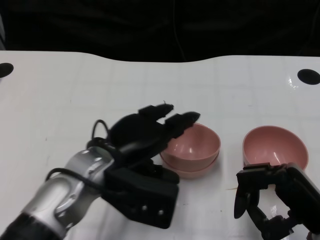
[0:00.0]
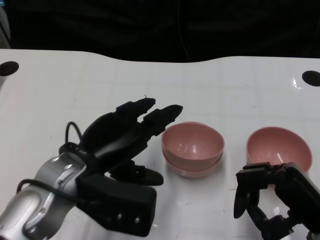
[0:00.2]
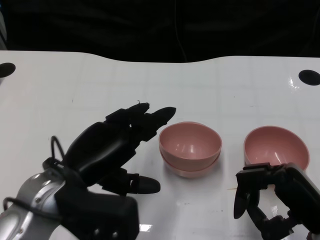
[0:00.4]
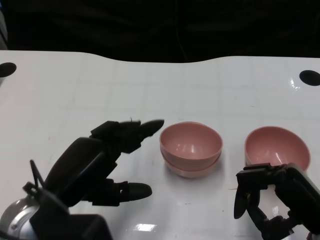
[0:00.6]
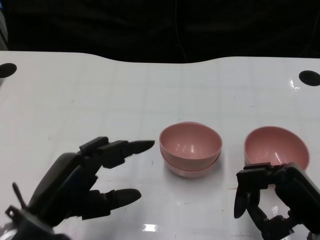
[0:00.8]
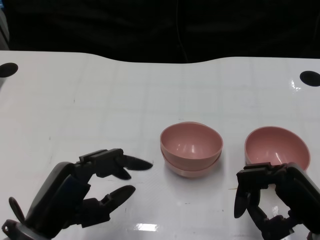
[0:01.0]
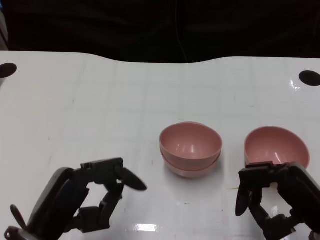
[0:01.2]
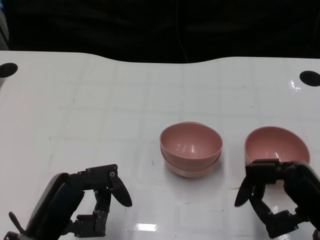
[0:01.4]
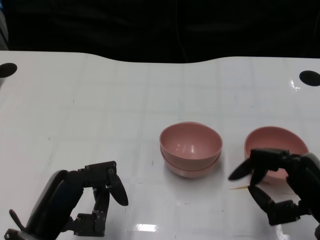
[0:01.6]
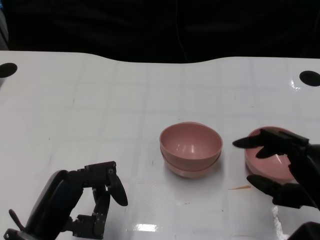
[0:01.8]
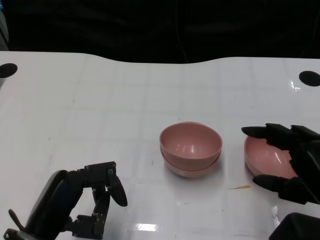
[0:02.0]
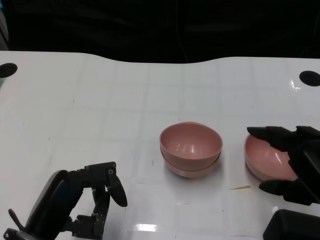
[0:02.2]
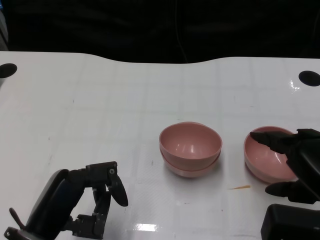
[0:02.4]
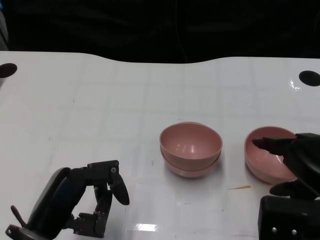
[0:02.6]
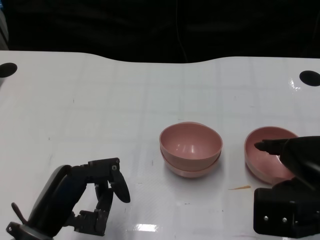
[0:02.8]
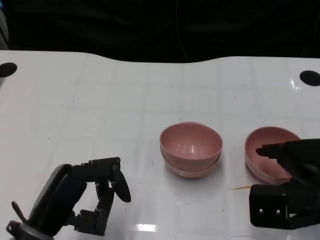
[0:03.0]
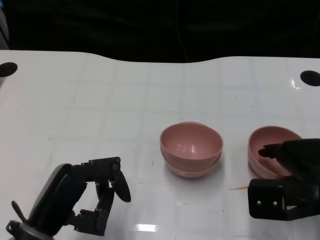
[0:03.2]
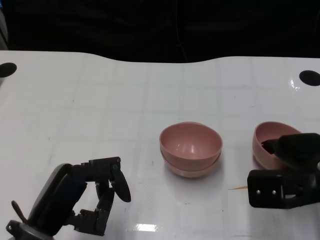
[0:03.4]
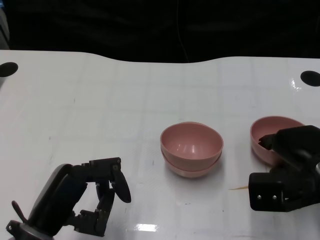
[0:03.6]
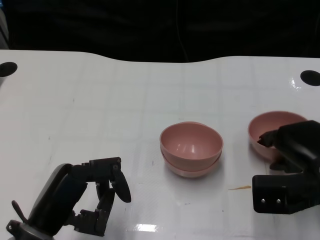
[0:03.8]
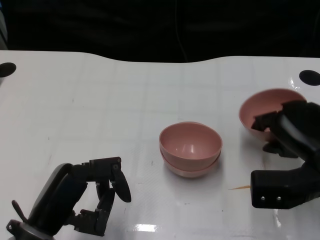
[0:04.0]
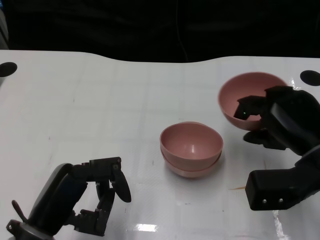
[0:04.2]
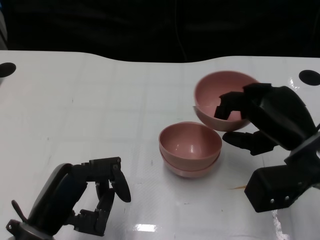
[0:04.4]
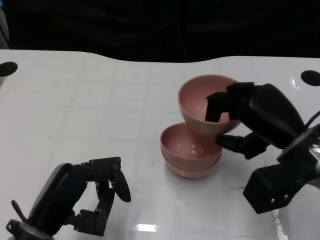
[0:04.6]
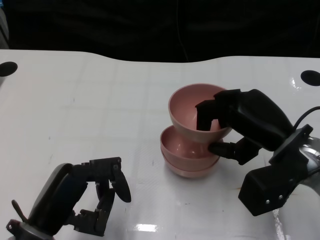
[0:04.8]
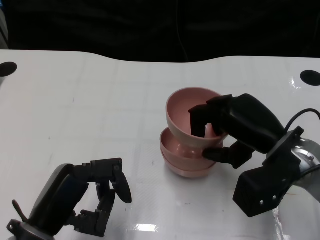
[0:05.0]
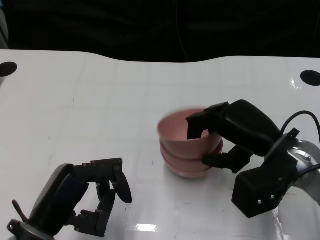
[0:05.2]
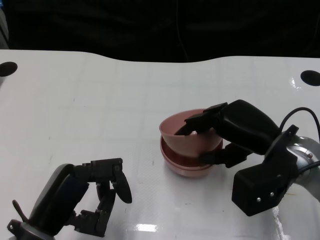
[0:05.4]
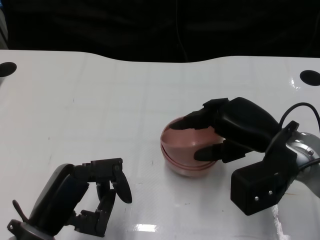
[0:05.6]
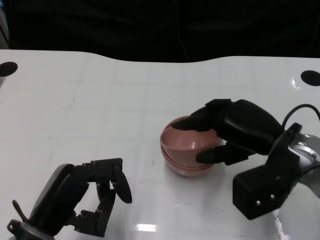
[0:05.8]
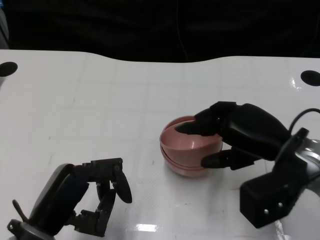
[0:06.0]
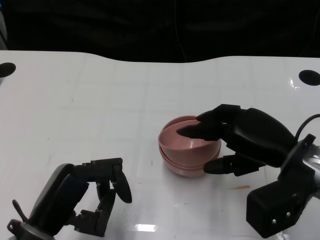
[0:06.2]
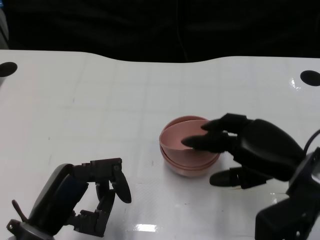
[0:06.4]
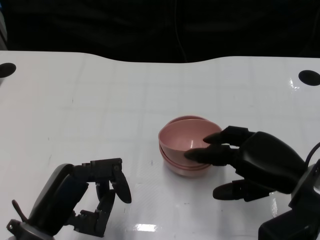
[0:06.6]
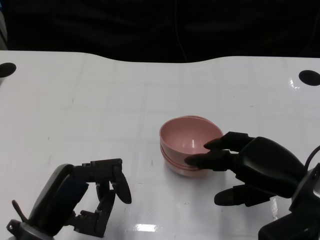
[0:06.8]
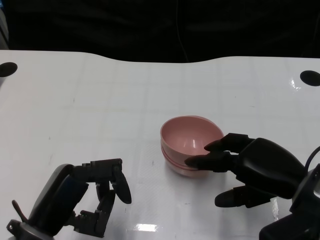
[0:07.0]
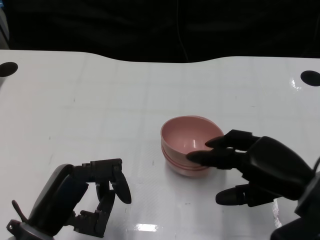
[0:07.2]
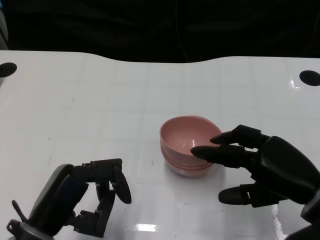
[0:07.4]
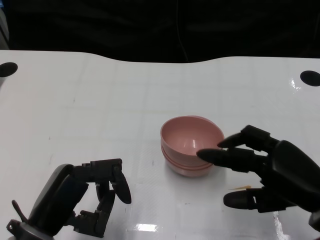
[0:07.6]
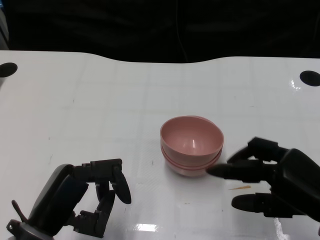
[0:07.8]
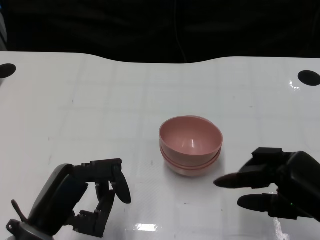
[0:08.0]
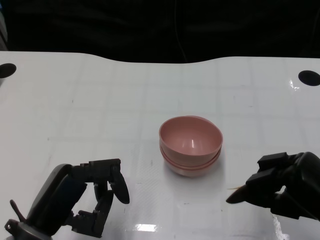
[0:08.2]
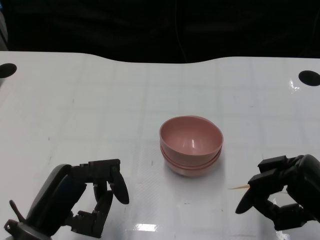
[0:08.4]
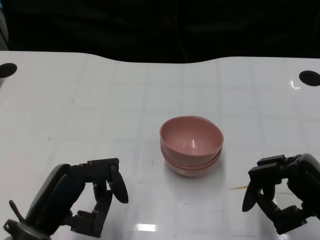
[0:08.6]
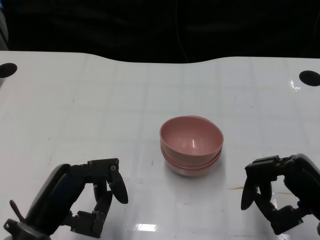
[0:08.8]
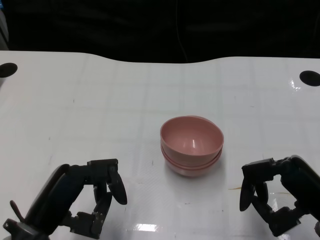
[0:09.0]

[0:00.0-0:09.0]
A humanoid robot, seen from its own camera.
Task of the whole recording: Pick up the bowl on one side of the table and place it on top of the middle bowl, then pick up the bowl on the other side of the table and place it on top of the middle bowls.
Step, 0.0 to 3.8 s: Grasp the bowl on the right with the right gripper.
Step, 4.0 to 7.0 s: Place the bowl on the right onto the bowl in the middle with right gripper.
0.0 to 1.6 s: The left hand travels backward and to the left by some 15 cm.
1.6 to 3.0 s: The right hand changes place by roughly 5 cm.
3.0 to 4.4 s: The right hand moves approximately 5 cm.
6.0 to 7.6 s: The right hand is displaced backward by about 5 cm.

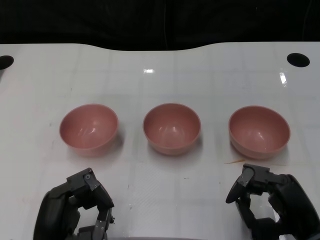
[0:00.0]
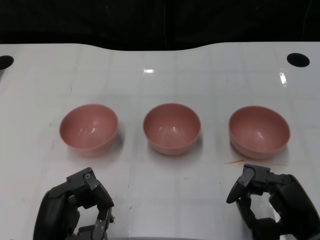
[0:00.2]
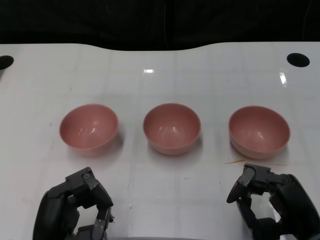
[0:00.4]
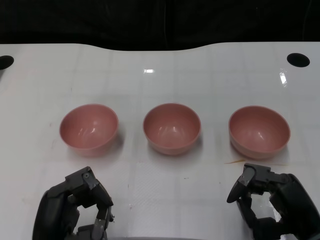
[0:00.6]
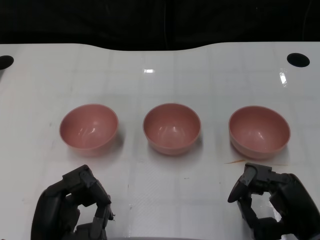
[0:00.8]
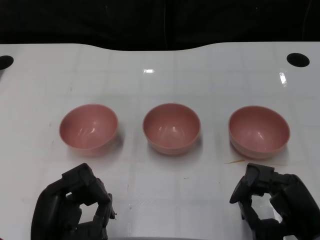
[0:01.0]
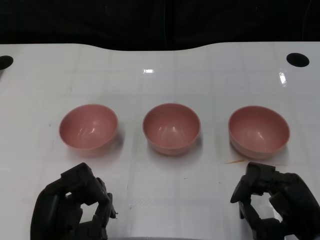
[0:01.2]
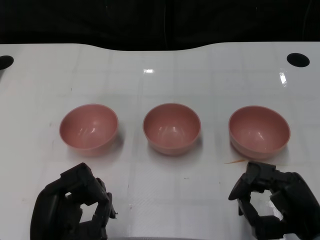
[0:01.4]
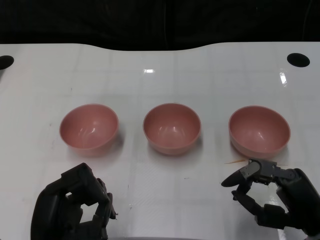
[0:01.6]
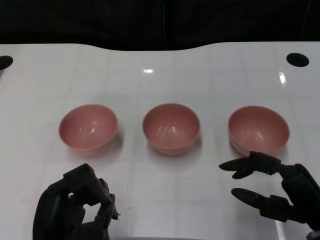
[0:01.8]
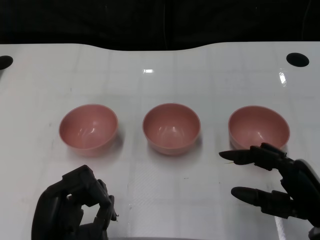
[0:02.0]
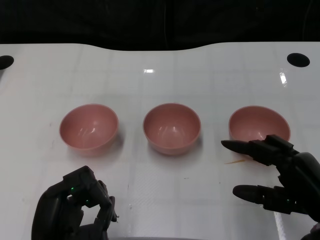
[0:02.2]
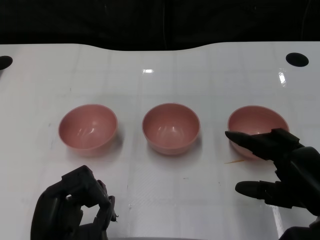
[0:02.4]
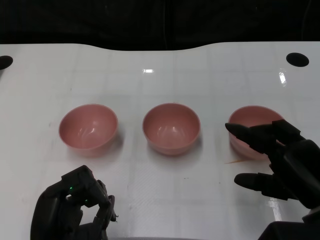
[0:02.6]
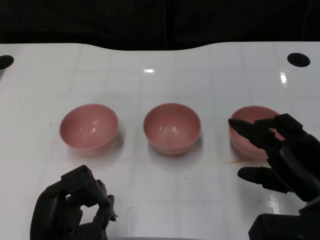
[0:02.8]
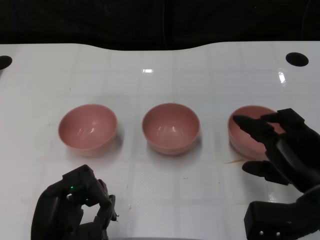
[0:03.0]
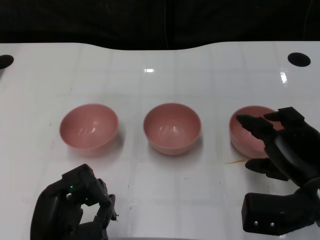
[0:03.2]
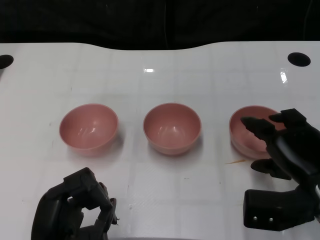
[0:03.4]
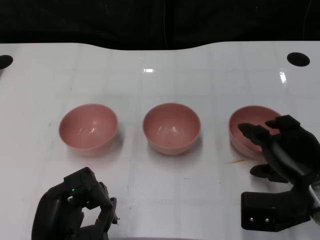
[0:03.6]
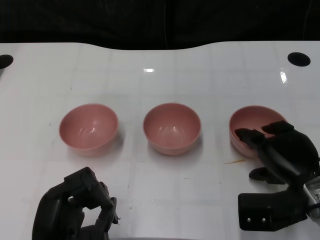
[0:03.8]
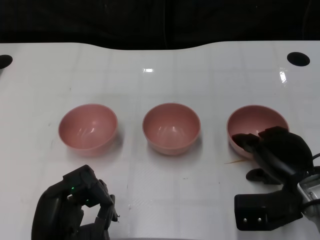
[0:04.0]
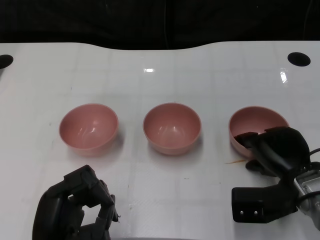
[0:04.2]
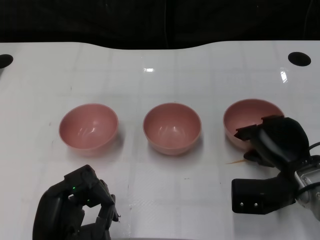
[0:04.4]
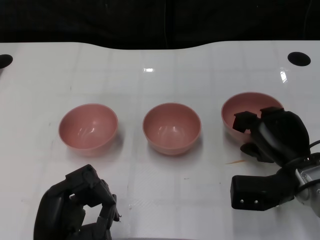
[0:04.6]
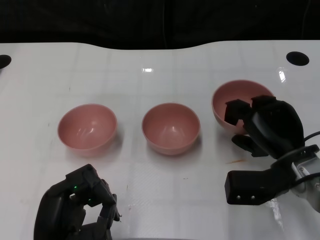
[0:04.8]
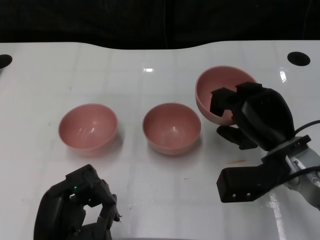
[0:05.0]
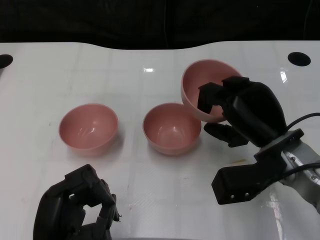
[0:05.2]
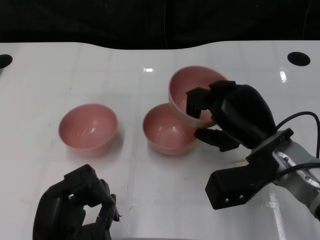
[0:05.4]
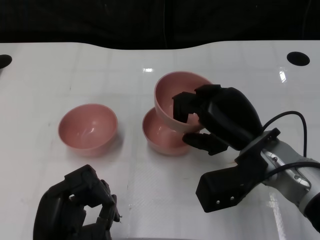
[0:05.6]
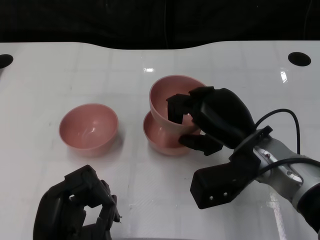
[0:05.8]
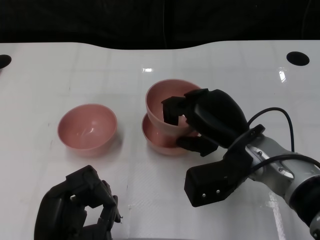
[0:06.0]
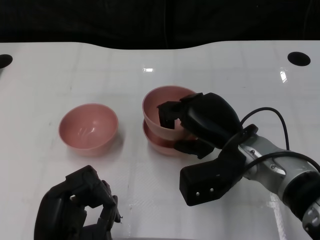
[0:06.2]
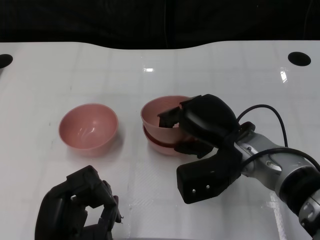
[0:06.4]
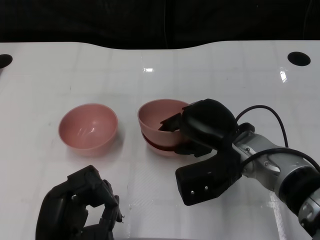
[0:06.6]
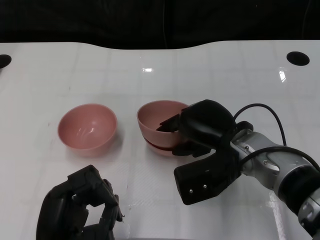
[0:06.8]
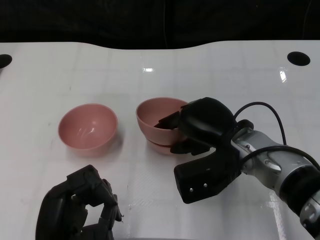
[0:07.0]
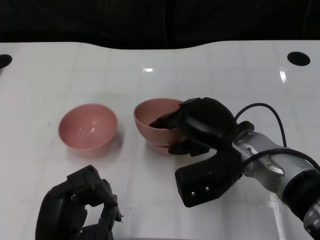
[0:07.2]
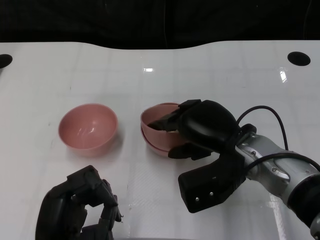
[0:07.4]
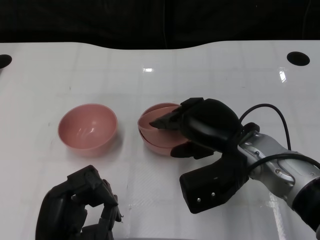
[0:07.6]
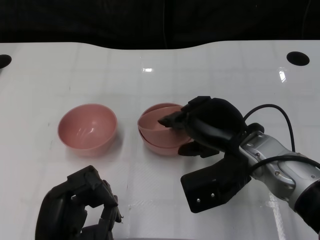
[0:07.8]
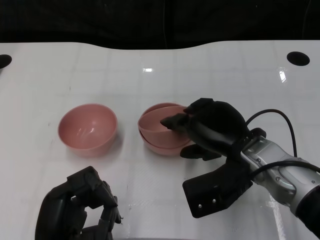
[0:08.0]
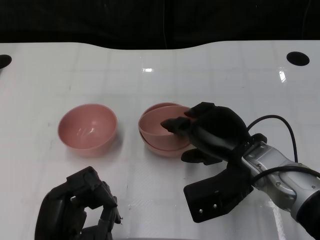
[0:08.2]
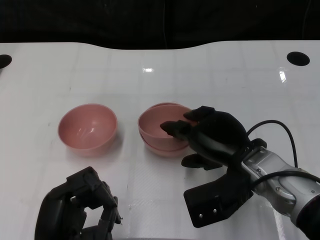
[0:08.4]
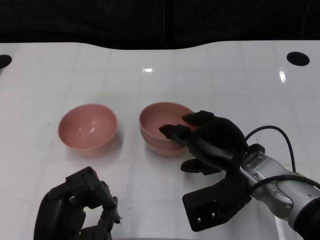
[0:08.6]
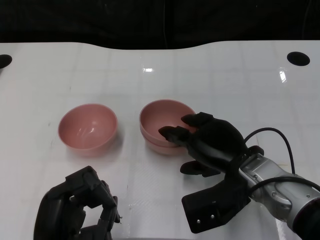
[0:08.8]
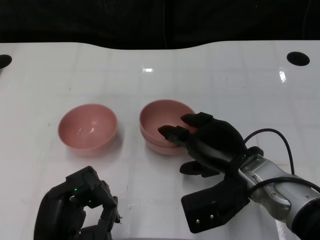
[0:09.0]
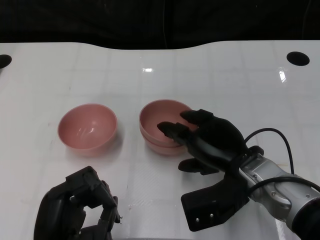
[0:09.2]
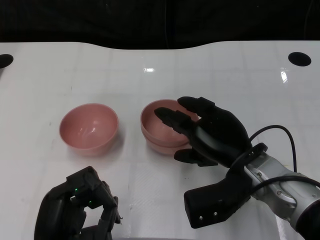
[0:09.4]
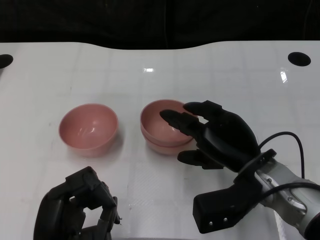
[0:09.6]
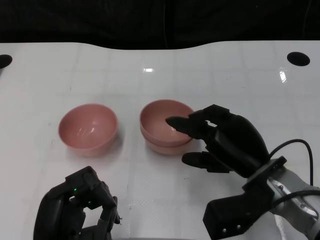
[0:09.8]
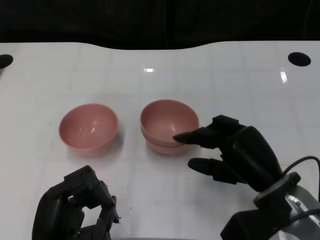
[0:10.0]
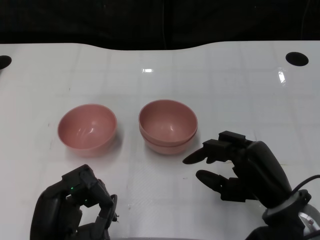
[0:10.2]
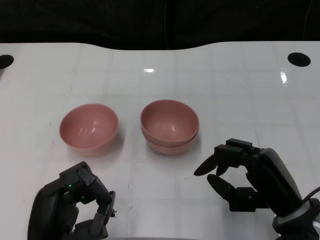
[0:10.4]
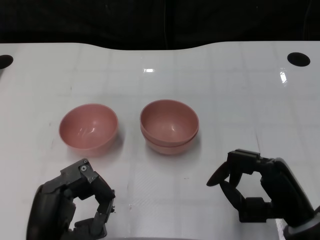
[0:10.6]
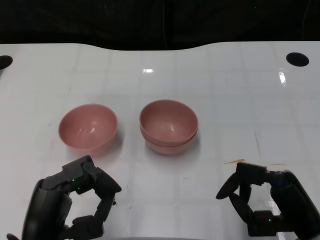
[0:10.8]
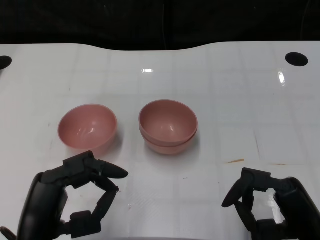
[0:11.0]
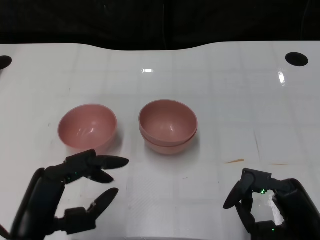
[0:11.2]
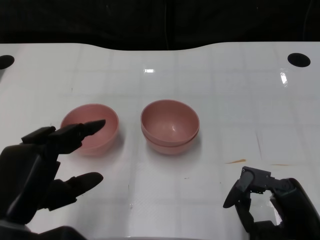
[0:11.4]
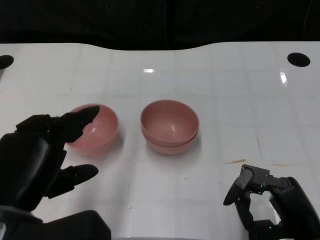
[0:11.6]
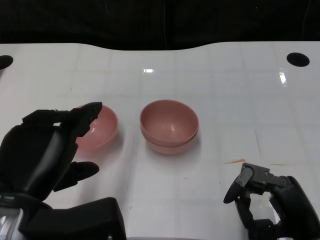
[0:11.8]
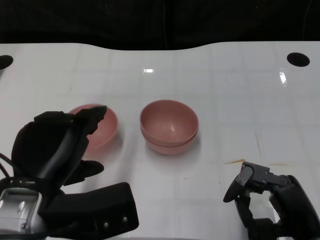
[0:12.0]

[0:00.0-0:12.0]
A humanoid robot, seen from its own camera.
Task of the whole recording: Pick up the bowl on one side of the table and place it on top of the middle bowl, then pick up the bowl on the other side of the table and place it on top of the middle bowls.
Step, 1.4 to 4.6 s: Grasp the bowl on the right with the right gripper.
Step, 4.8 to 9.8 s: Place the bowl on the right onto the bowl in the middle with right gripper.
1.6 to 3.0 s: The right hand shifts by approximately 5 cm.
3.0 to 4.4 s: The right hand is displaced forward by roughly 5 cm.
4.4 to 6.0 s: The right hand goes about 10 cm to the left and upward.
6.0 to 7.6 s: The hands stay close to where they were, moving slightly.
7.6 to 9.0 s: The hands make only small movements.
9.0 to 10.4 s: The right hand shifts about 10 cm backward and to the right.
10.4 to 12.0 s: The left hand shifts approximately 10 cm upward.

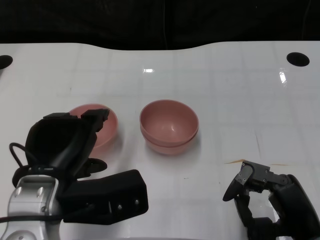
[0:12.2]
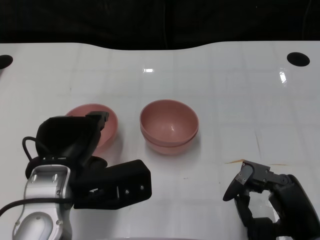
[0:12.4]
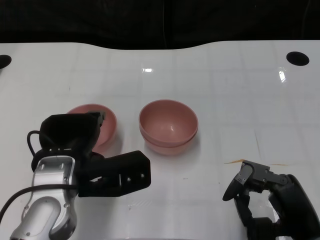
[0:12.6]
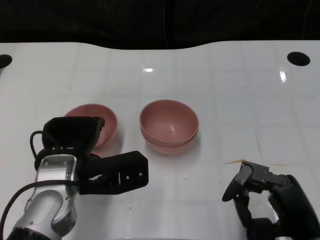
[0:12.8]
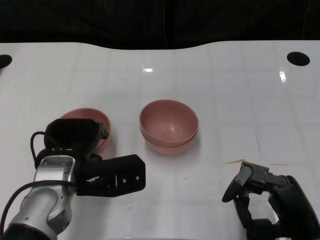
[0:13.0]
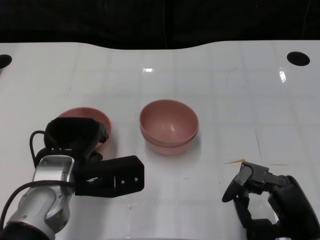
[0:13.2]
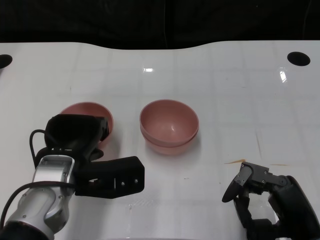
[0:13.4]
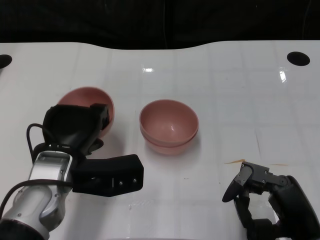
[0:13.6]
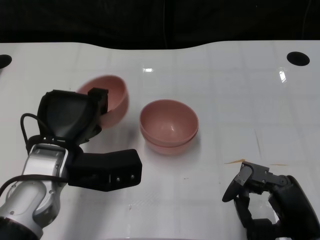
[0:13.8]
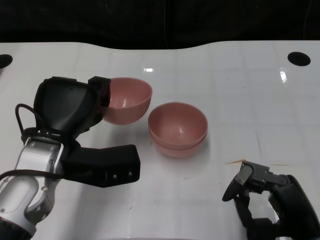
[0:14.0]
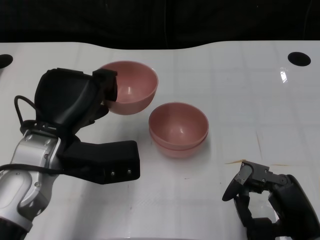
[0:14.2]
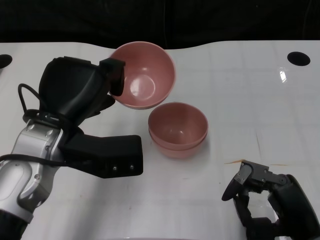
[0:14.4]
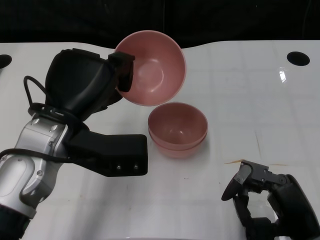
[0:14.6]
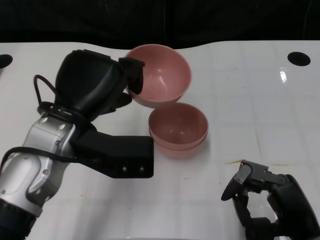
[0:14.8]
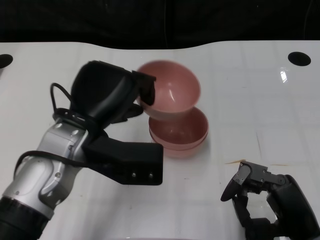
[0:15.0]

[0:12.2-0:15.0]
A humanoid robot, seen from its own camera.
Task of the whole recording: Pick up the bowl on one side of the table and place it on top of the middle bowl, then pick up the bowl on the other side of the table and place it on top of the middle bowls.
12.2 to 13.6 s: The left hand travels forward by some 5 cm.
13.6 to 15.0 s: The left hand heads upward, covering about 5 cm.
